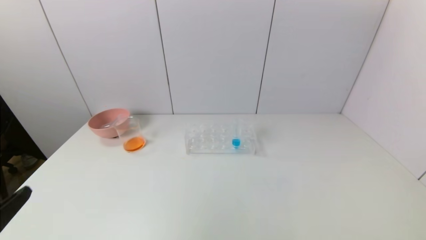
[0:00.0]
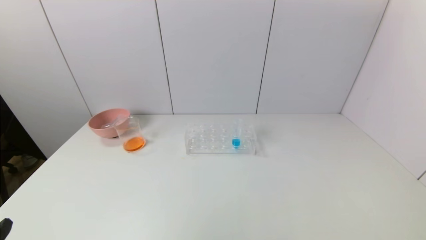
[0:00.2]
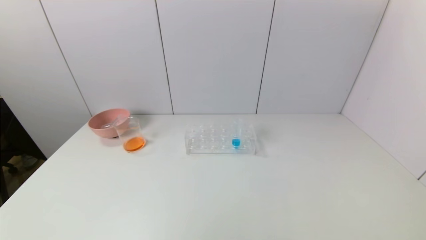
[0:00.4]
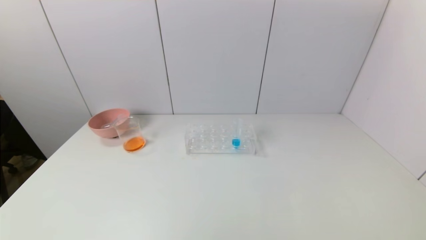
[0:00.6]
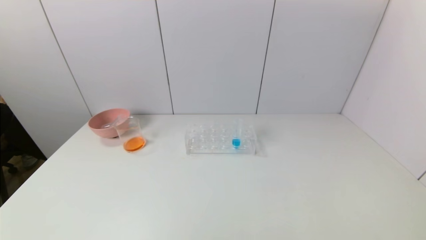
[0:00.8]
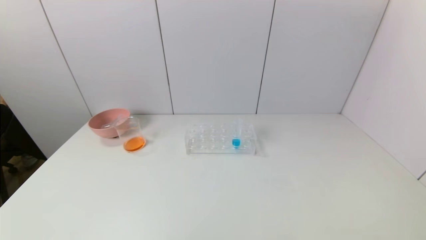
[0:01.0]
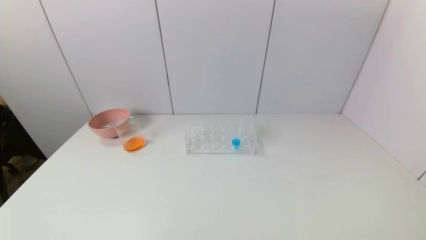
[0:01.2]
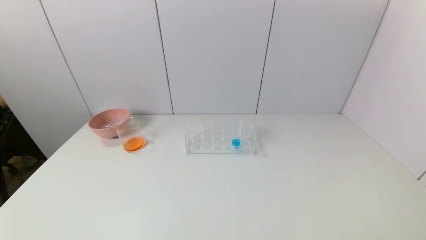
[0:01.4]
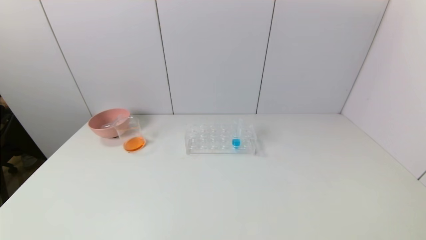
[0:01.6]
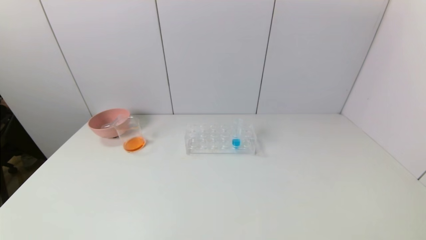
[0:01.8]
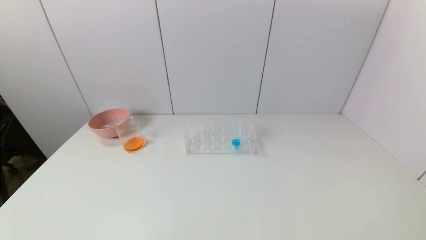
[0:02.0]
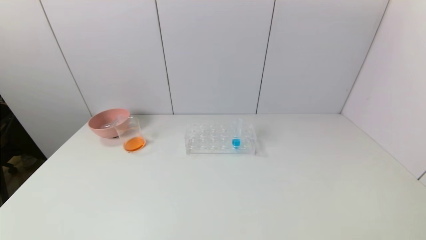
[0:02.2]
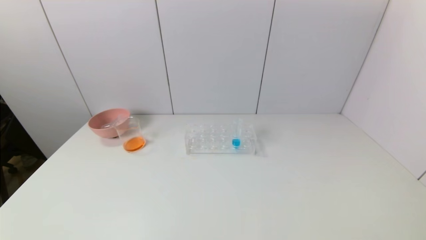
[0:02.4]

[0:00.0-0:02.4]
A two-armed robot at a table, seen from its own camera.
Task of the whole recording: pick up the test tube with yellow pigment and the test tube with red pigment by grippers and pour them into the beaker.
0:00.0 to 0:01.2: The left gripper shifts some 10 cm downward.
